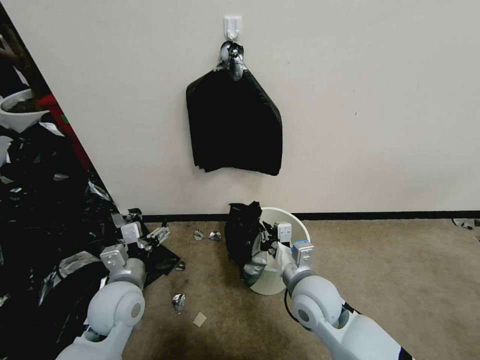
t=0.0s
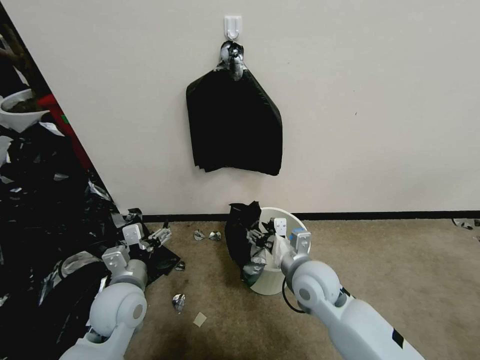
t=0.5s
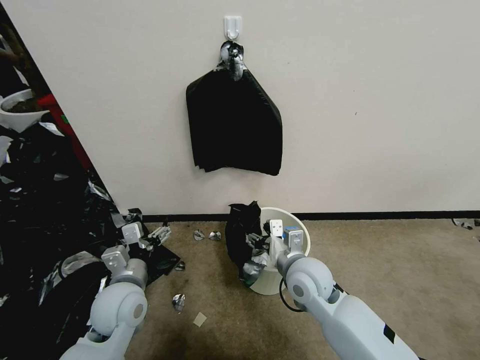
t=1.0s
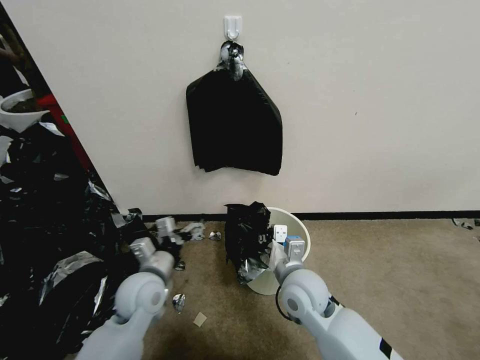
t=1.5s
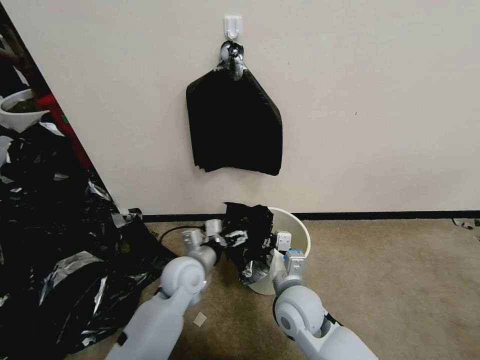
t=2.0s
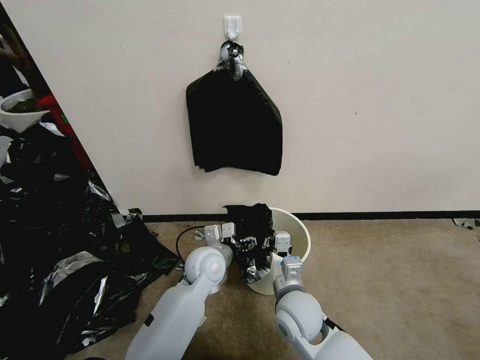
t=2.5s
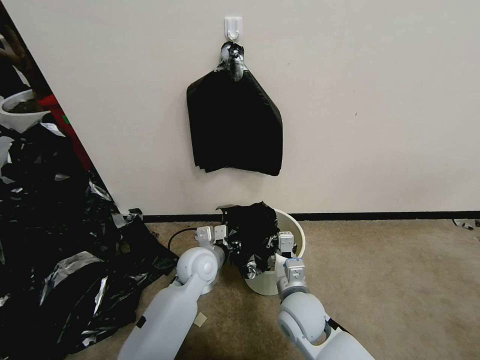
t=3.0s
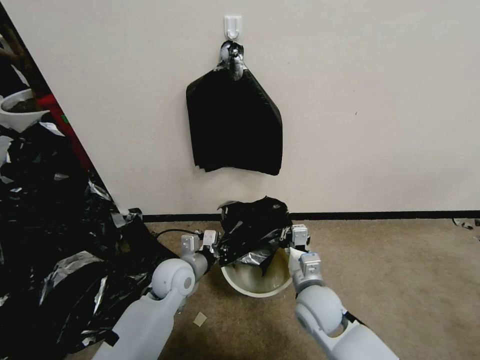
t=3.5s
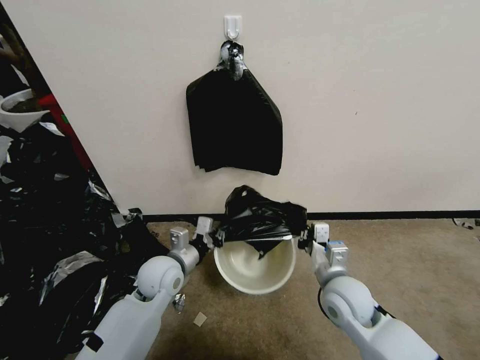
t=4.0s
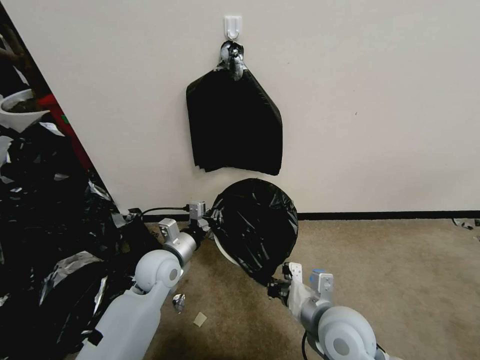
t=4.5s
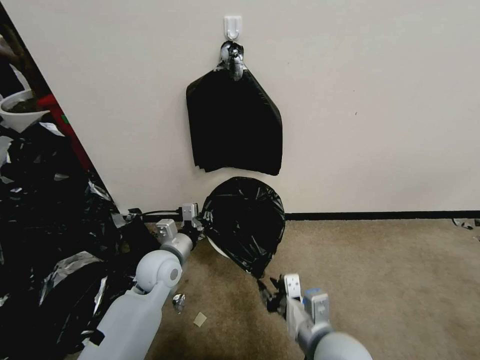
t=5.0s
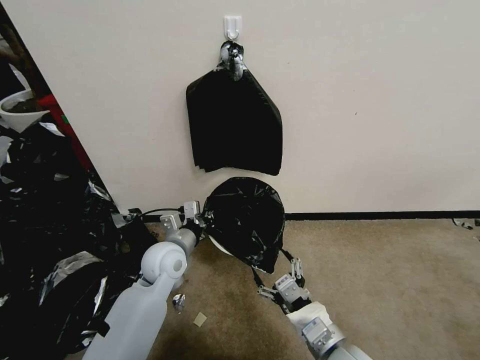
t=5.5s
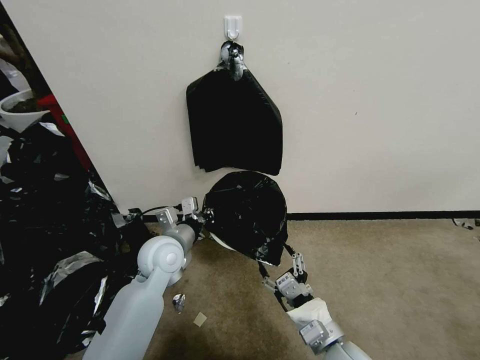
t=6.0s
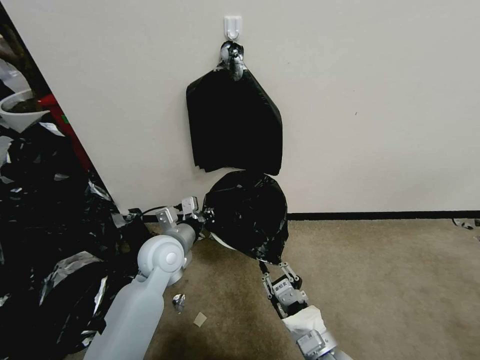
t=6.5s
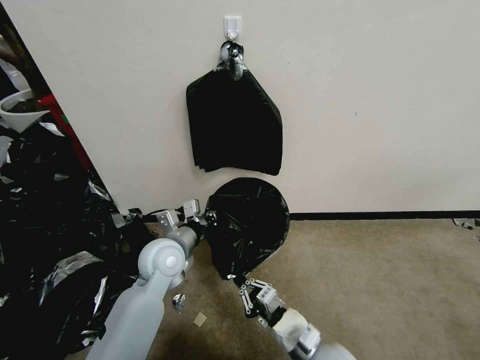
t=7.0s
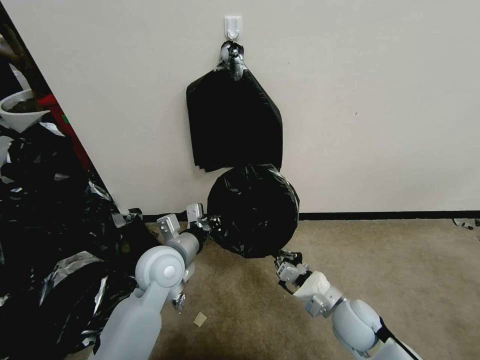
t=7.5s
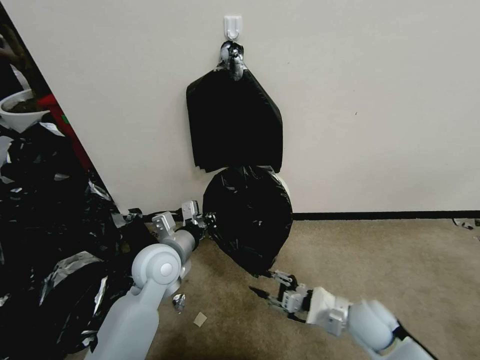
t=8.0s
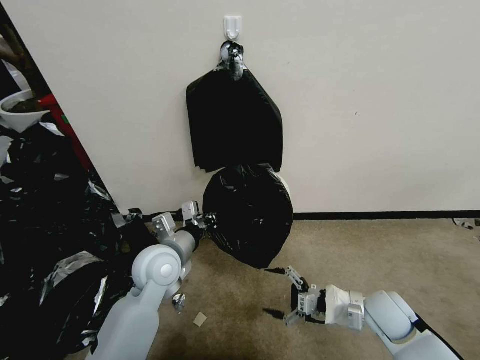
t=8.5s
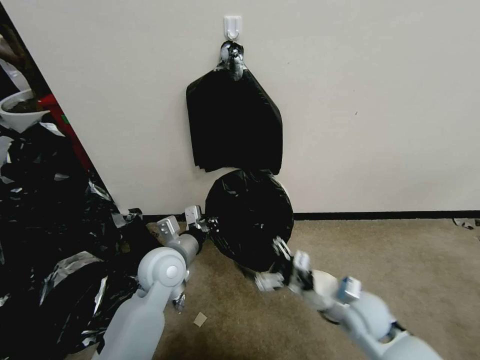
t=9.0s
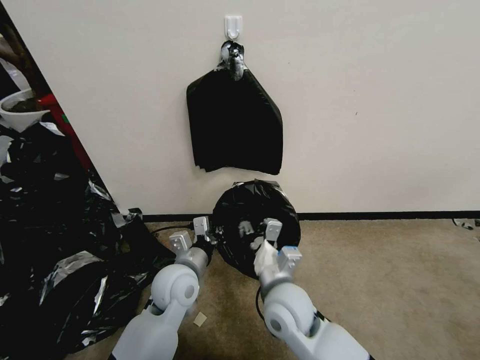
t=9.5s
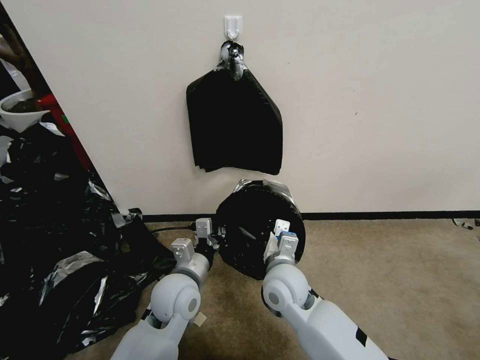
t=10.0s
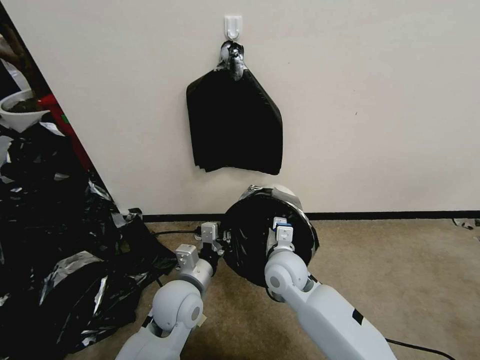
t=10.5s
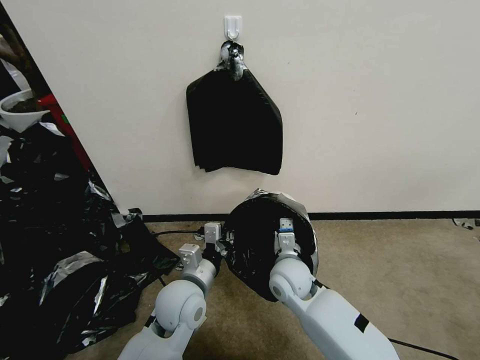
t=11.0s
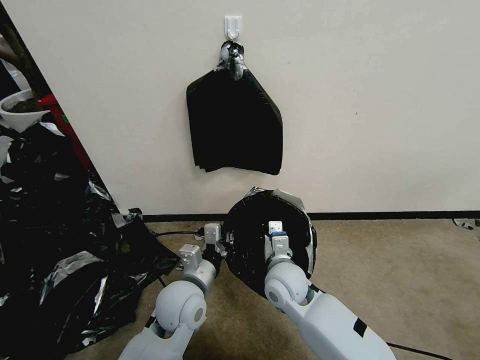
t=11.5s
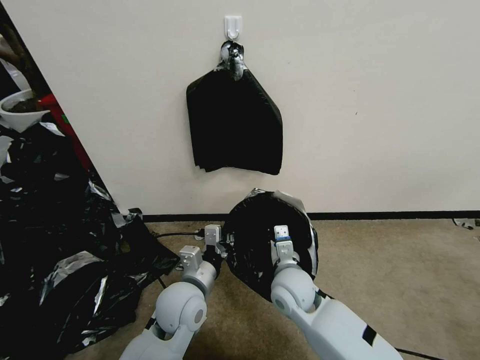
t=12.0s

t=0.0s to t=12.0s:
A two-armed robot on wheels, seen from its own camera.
Task of the whole recording: Place a trash bag onto the trash bin.
t=0.0s to t=2.0s: The right gripper opens, then closes once more. The left gripper goes about 15 cm to the right and forward.
t=2.0s to t=4.0s: The right gripper shifts some 10 cm to the right. The left gripper closes.
t=4.0s to t=6.0s: The right gripper travels backward by some 10 cm, and opens its fingers. The left gripper travels upward by approximately 5 cm.
t=6.0s to t=8.0s: The right gripper shifts approximately 15 cm to the right and forward, and closes, then opens again.
t=8.0s to t=10.0s: The left gripper changes place by some 5 cm. The right gripper shifts roughly 20 cm to the left, and closes up.

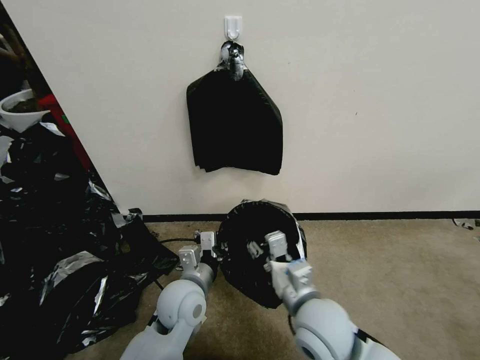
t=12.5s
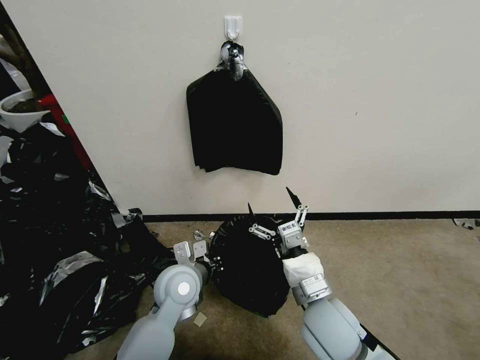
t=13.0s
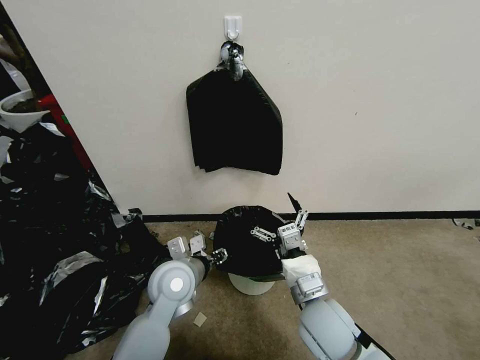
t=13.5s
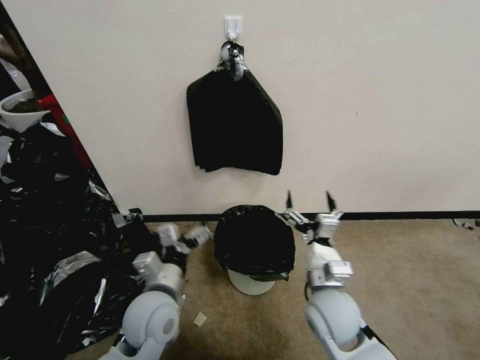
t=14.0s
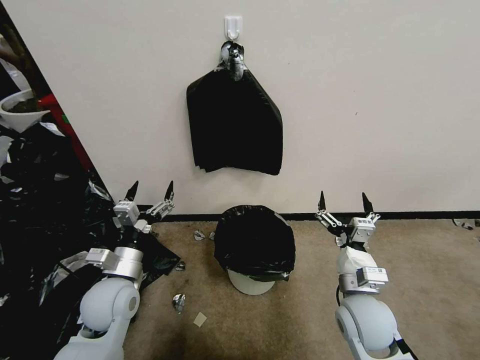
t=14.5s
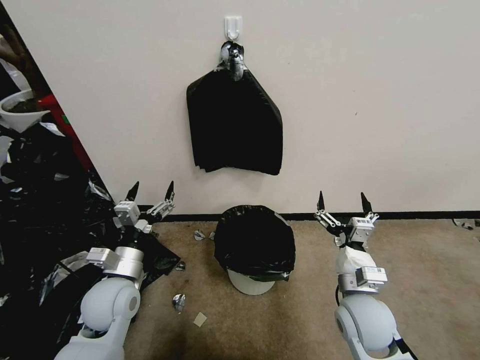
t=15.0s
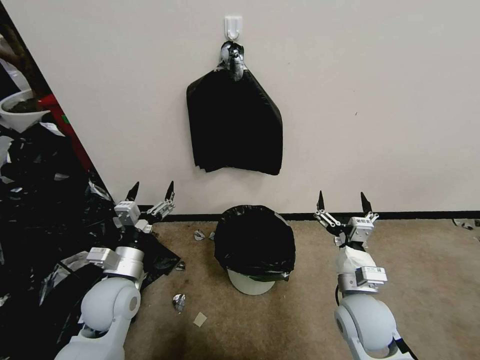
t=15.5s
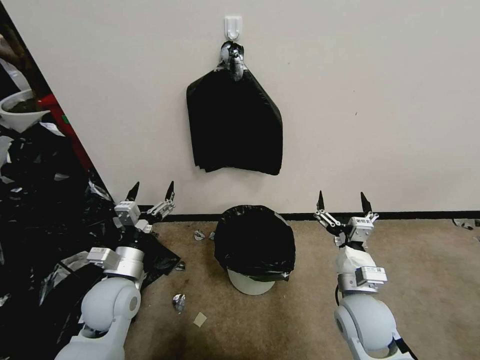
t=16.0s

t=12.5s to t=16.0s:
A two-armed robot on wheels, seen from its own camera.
Task of the whole recording: Place a trash bag onto the trash bin.
t=12.5s to t=14.5s: The right gripper goes about 10 cm to the right, and opens its fingers. Meanwhile the left gripper is displaced to the left by roughly 15 cm, and opens its fingers.
t=14.5s to t=16.0s: The two grippers keep their place.
